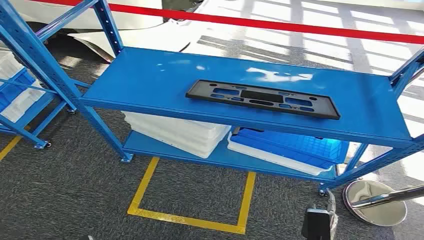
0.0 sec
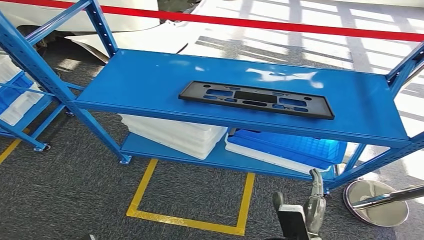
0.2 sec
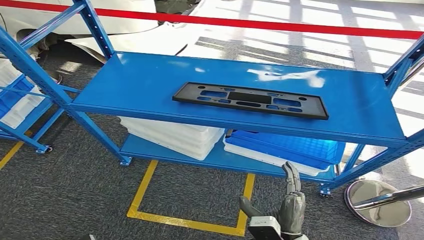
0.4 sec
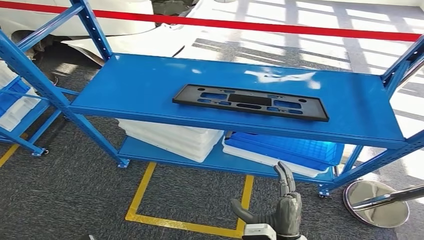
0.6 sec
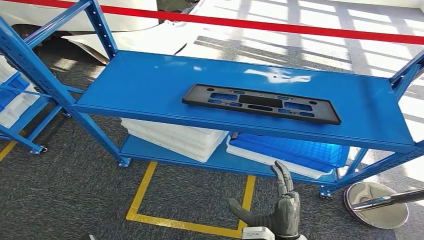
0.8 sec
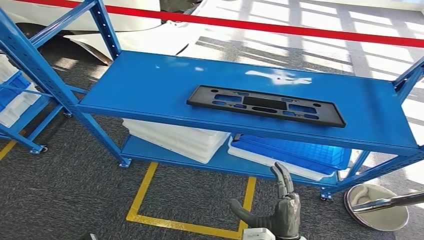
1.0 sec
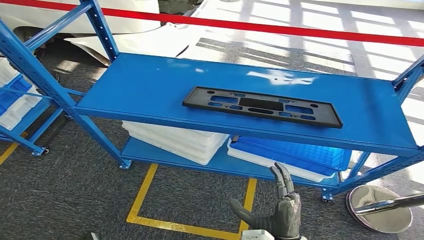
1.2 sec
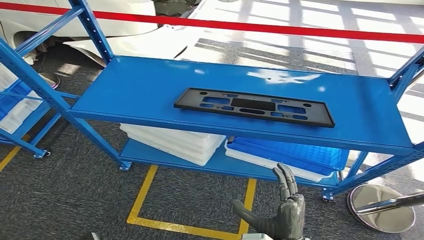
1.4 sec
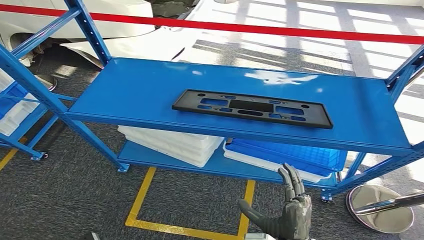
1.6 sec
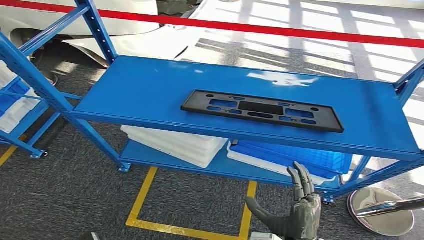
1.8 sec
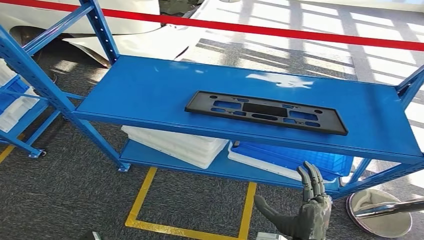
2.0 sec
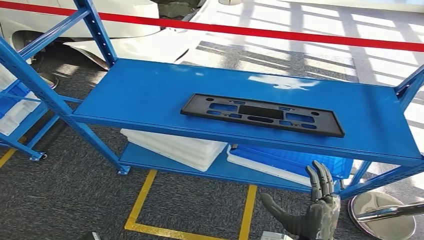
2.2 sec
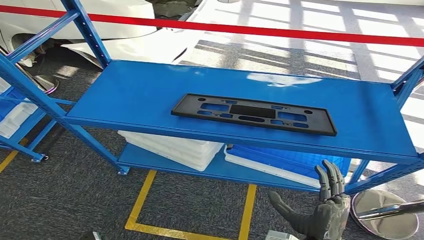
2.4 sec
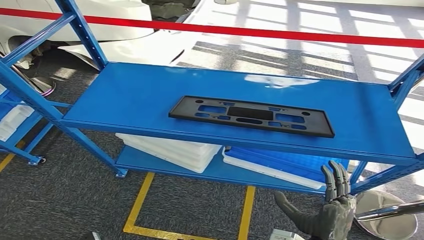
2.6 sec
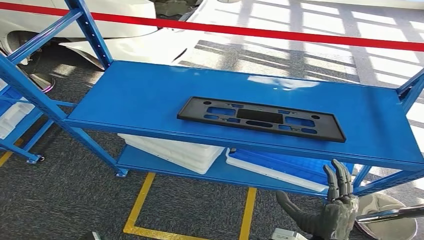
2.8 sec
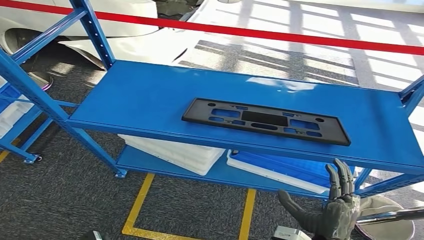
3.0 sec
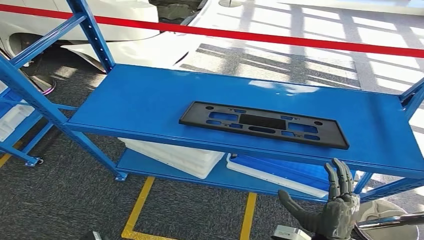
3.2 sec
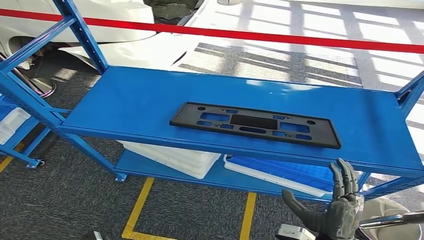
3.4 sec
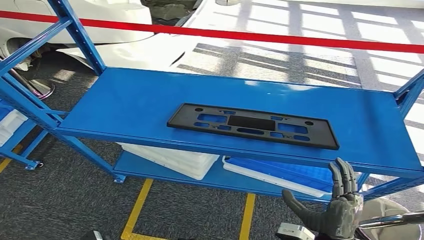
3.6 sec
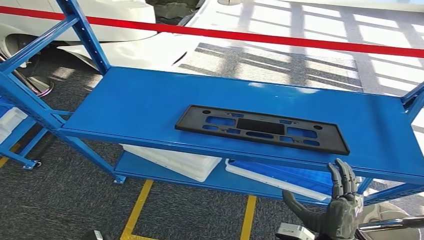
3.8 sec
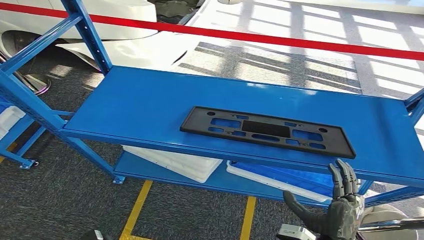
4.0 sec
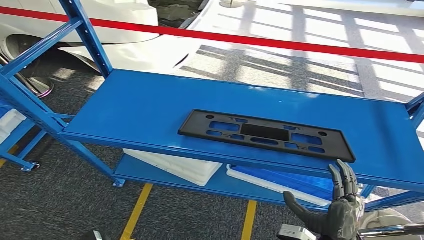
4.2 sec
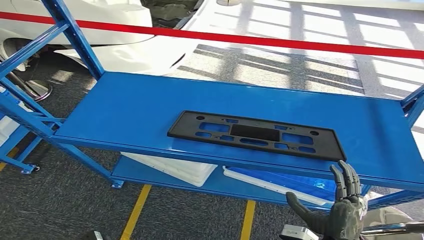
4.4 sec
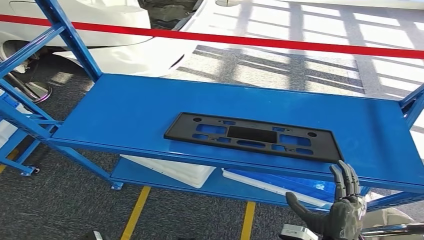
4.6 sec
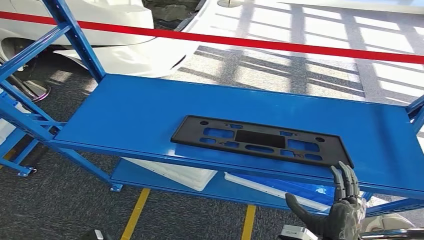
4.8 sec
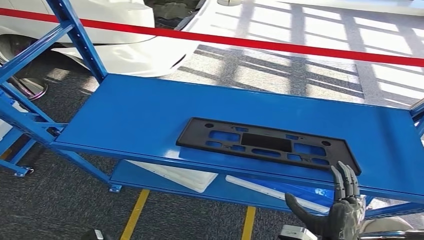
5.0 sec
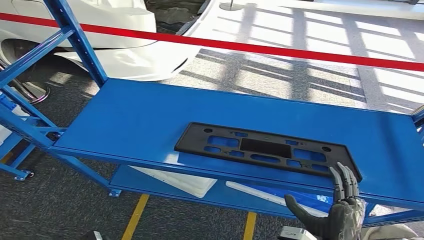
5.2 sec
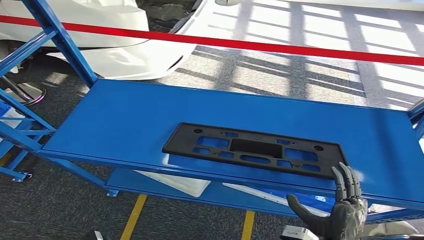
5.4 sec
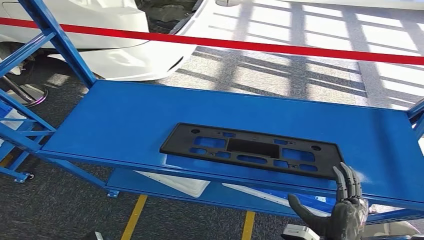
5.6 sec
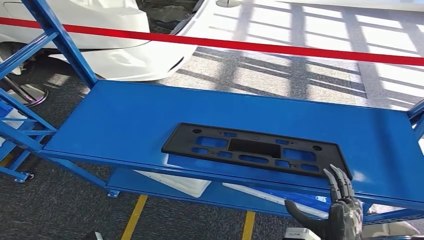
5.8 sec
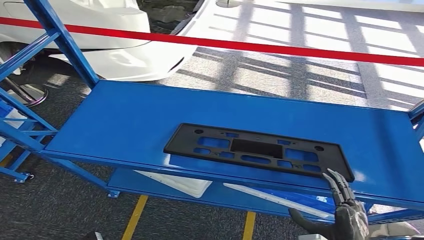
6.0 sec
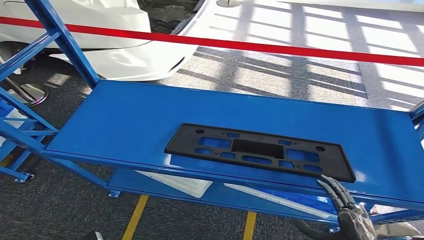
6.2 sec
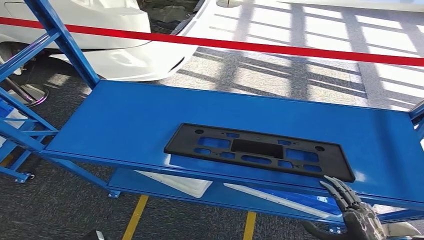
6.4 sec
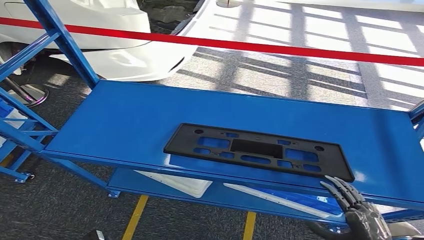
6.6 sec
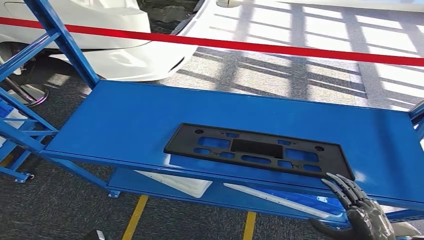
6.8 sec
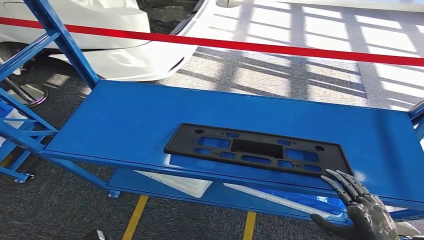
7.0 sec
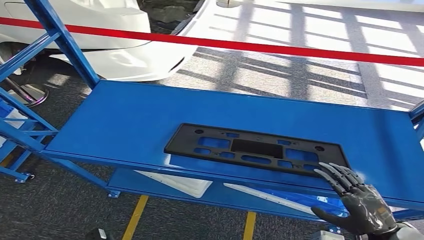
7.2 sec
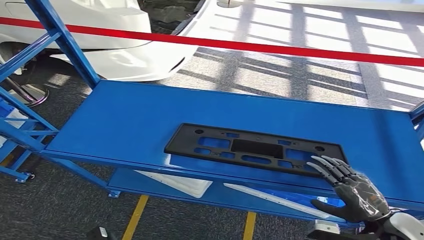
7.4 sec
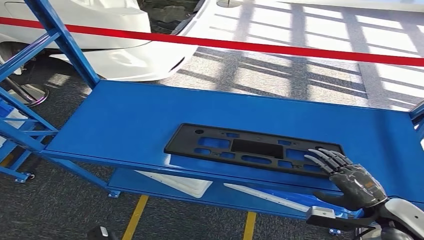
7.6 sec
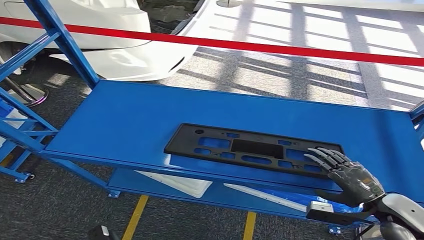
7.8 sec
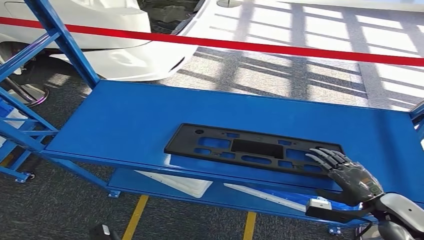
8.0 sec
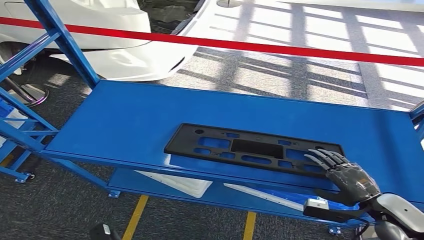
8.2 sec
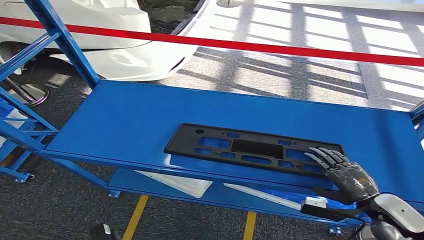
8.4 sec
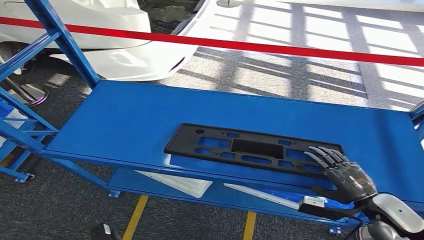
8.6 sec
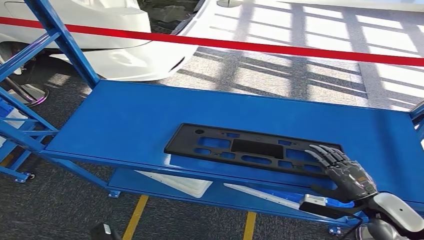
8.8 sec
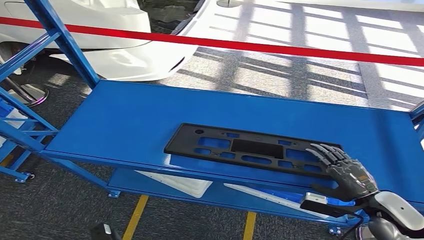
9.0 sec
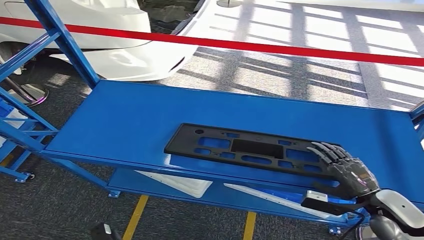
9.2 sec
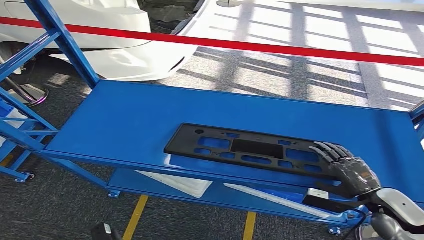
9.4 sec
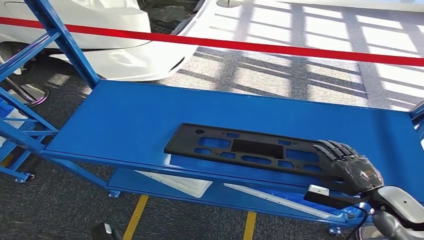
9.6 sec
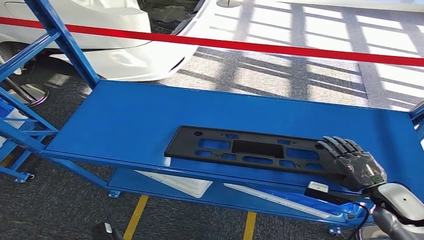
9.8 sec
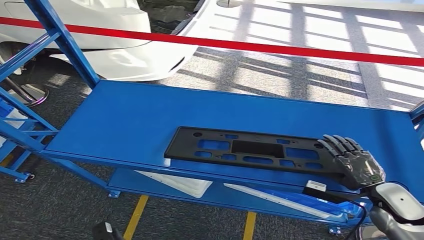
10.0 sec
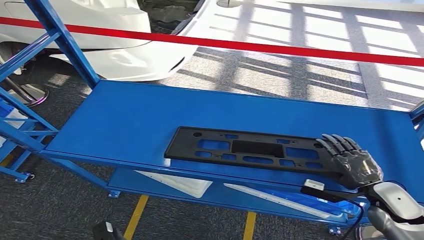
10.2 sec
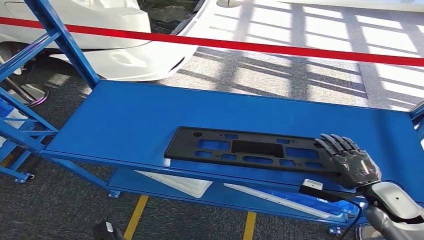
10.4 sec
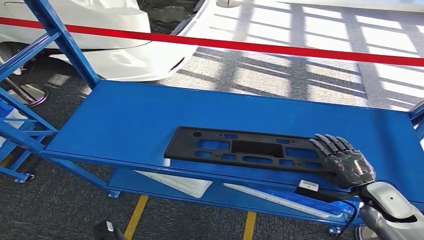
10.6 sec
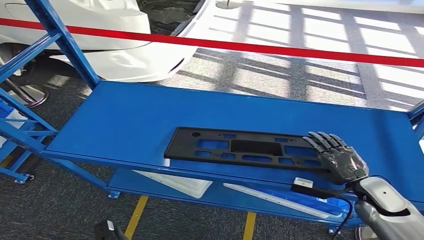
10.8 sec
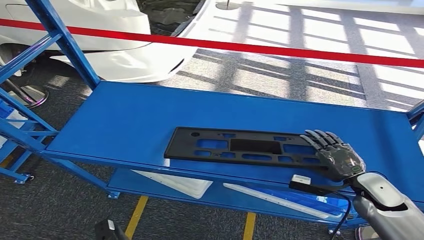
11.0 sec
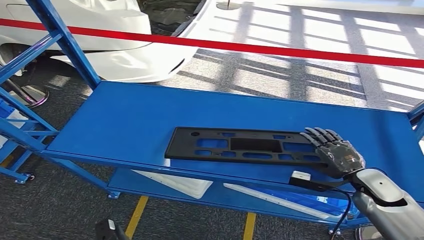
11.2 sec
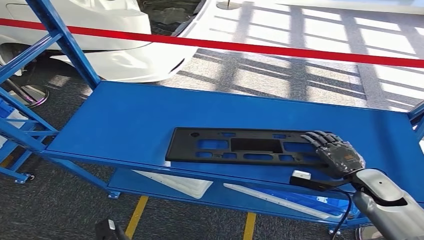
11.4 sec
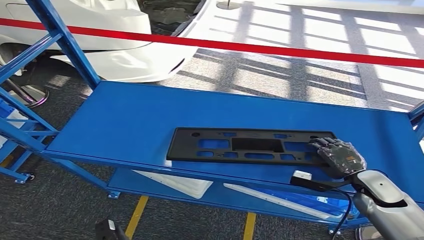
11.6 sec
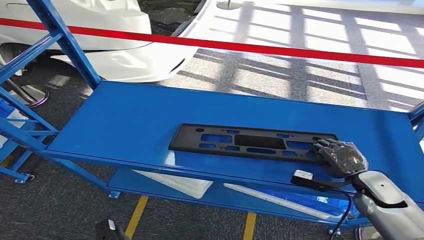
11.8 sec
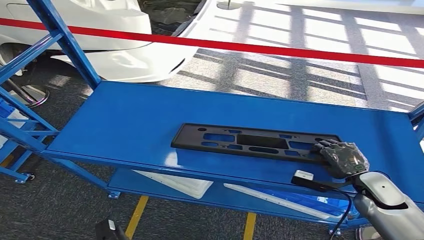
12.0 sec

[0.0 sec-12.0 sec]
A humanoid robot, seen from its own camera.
6.0 sec to 7.6 sec: The right hand is displaced forward, to the right and upward by some 15 cm.
7.6 sec to 9.0 sec: The hands stay close to where they were, moving slightly.
9.0 sec to 10.4 sec: The hands move only a little.
10.4 sec to 12.0 sec: The hands move only a little.

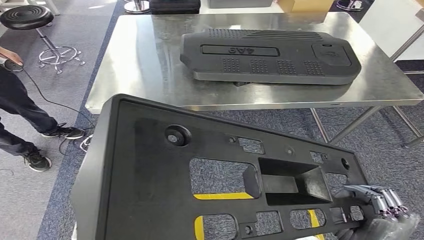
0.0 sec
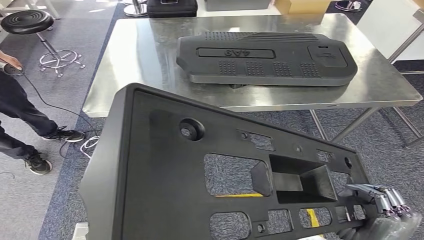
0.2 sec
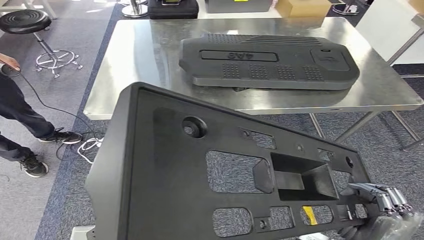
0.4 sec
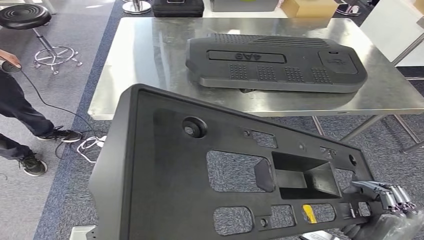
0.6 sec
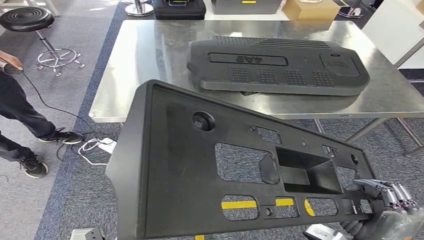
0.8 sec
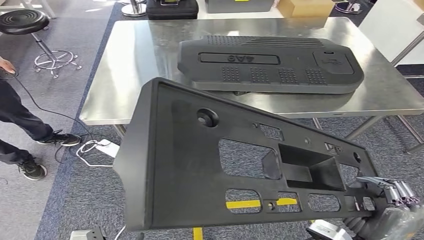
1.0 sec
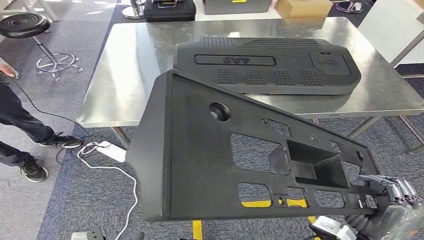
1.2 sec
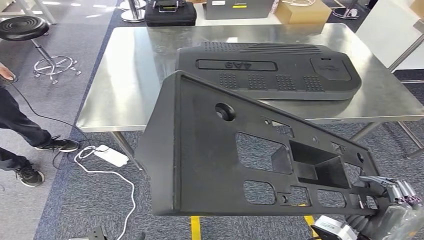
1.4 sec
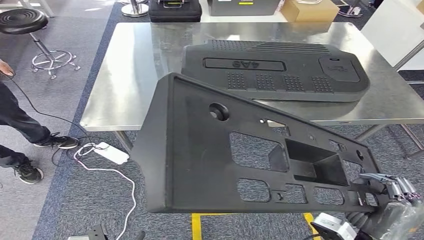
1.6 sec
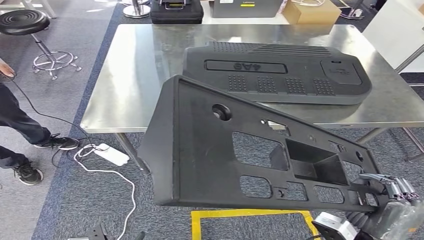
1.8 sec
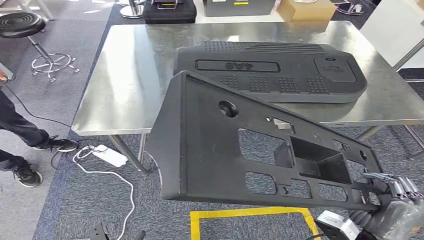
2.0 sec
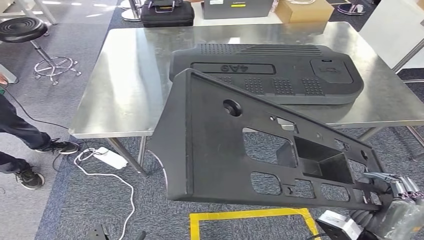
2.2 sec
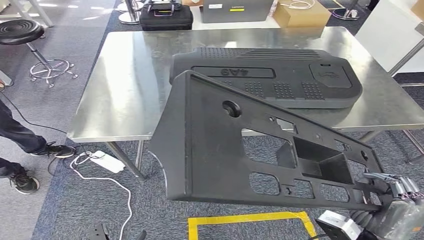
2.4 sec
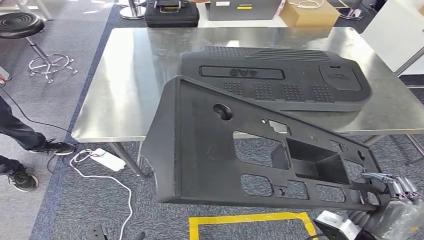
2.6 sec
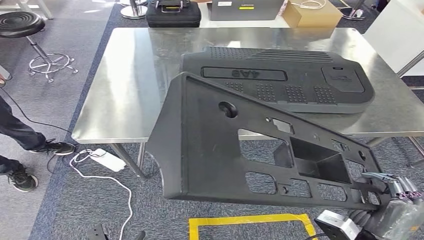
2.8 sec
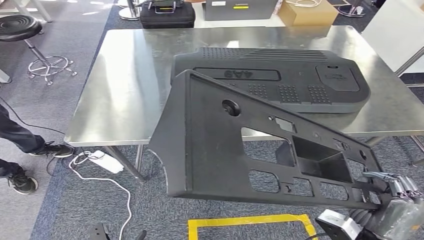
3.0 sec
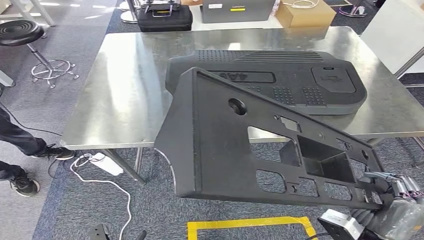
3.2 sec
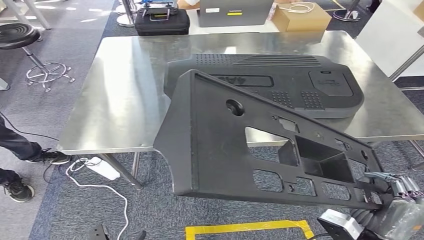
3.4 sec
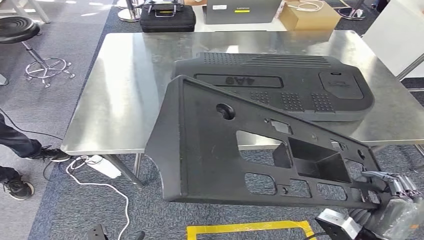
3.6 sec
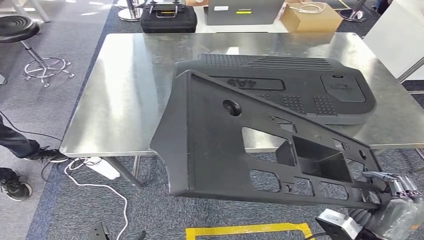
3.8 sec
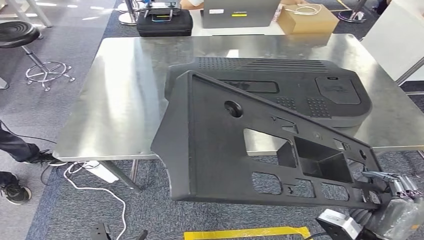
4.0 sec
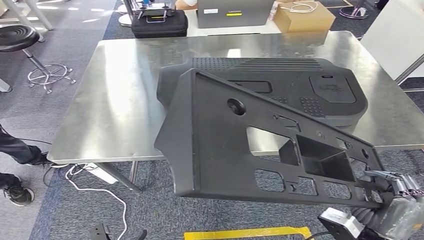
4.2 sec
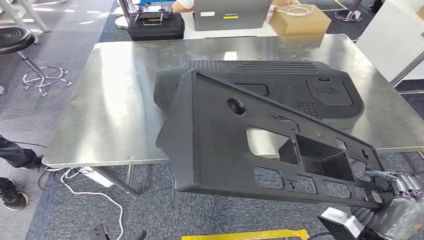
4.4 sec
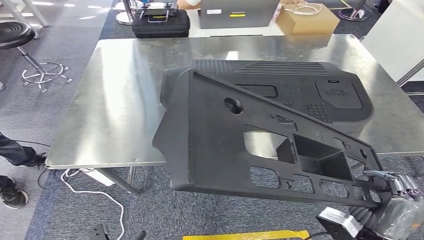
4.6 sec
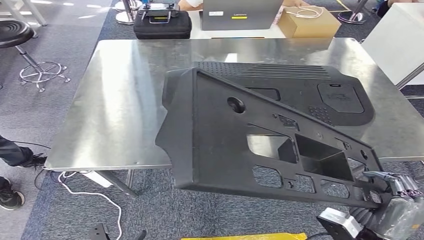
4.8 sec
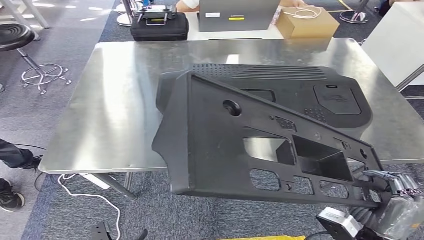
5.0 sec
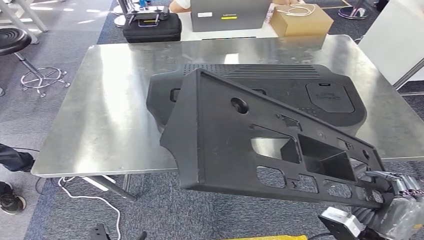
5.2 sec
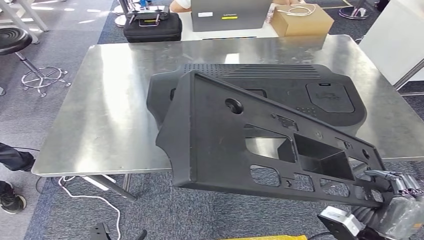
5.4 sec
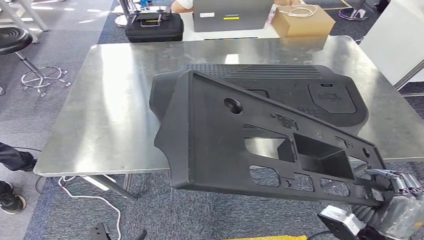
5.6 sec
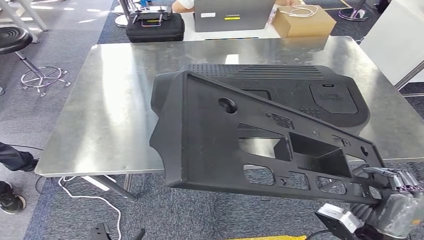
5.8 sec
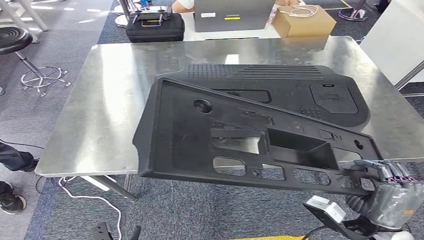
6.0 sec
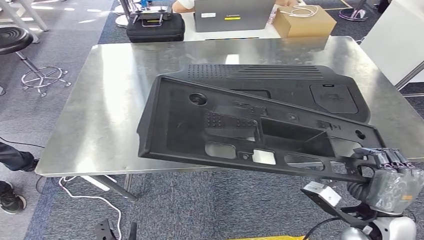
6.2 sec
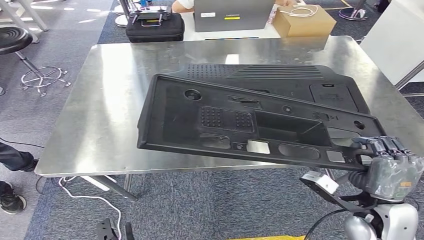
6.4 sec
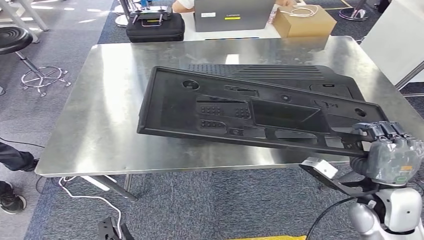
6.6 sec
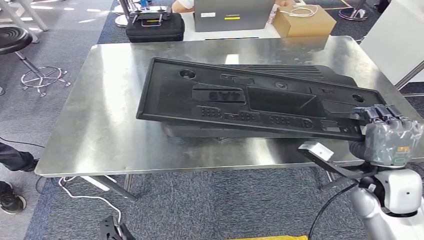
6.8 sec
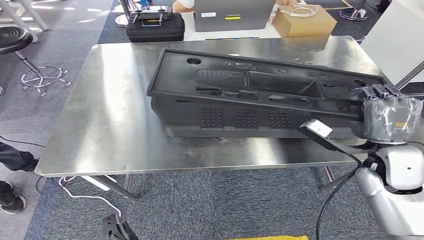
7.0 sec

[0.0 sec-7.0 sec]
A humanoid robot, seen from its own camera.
Step, 0.0 sec to 5.0 sec: Move the large material to the workbench.
